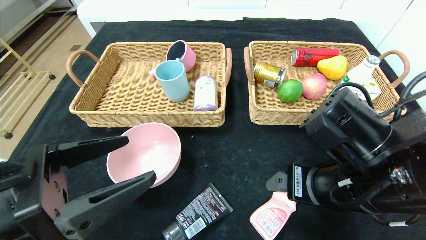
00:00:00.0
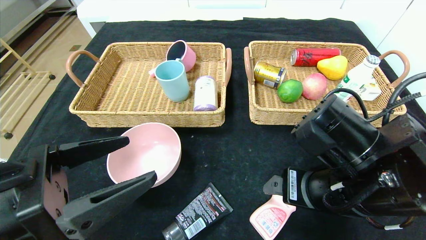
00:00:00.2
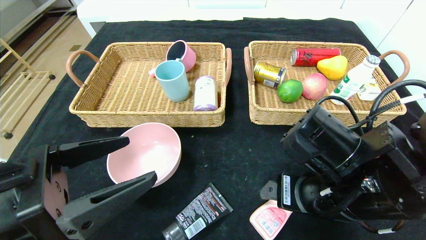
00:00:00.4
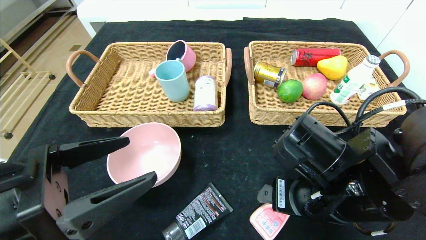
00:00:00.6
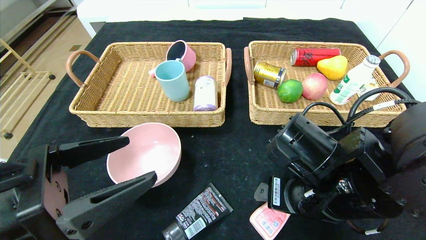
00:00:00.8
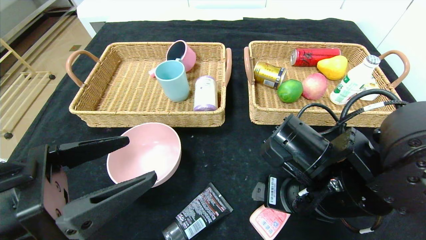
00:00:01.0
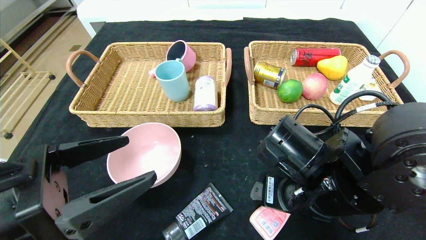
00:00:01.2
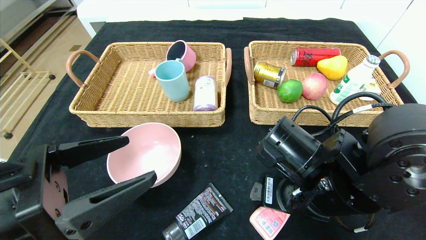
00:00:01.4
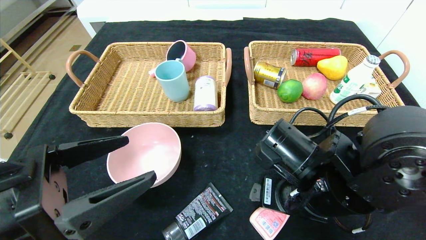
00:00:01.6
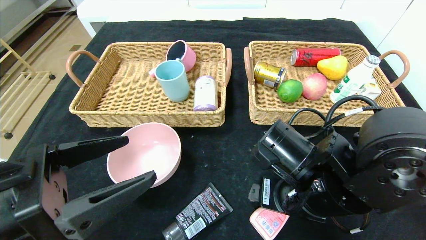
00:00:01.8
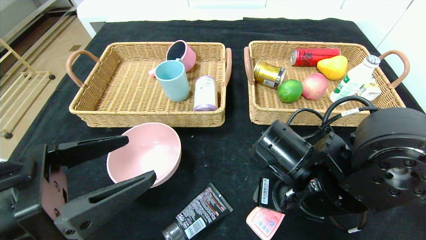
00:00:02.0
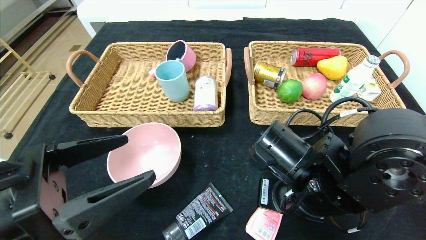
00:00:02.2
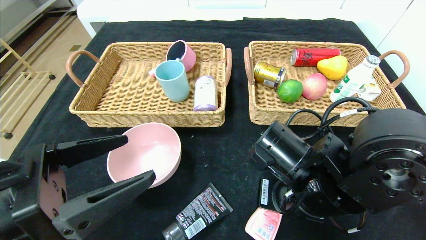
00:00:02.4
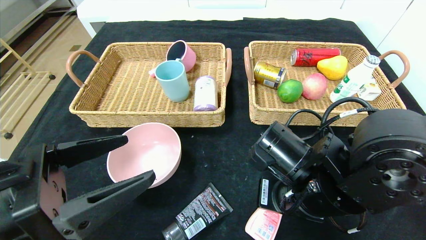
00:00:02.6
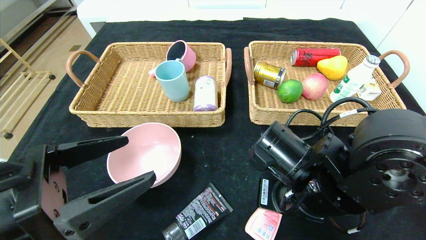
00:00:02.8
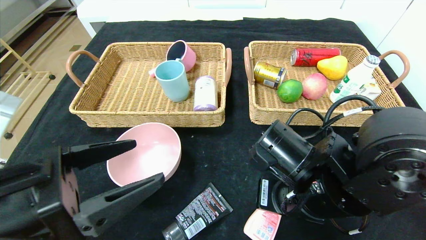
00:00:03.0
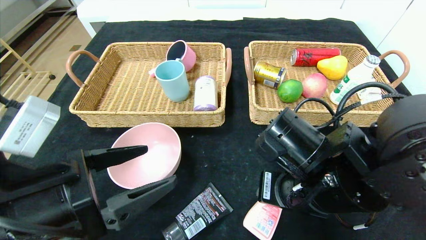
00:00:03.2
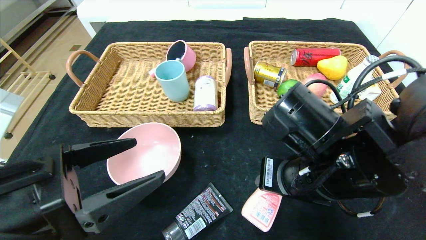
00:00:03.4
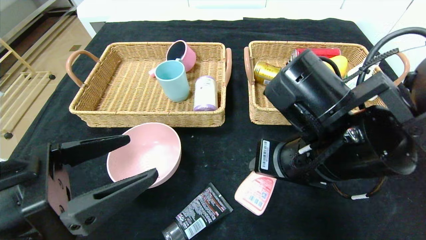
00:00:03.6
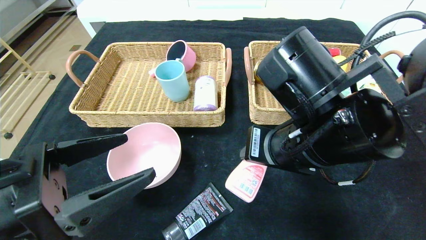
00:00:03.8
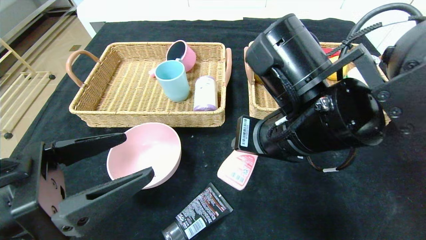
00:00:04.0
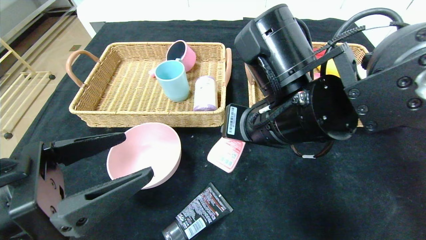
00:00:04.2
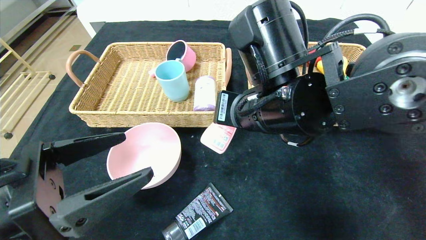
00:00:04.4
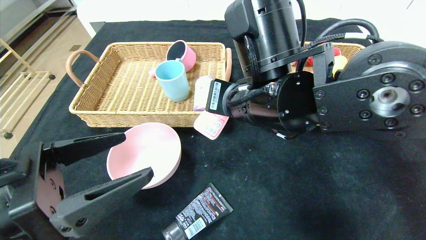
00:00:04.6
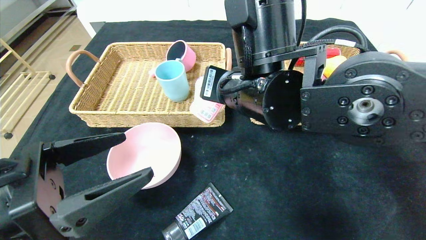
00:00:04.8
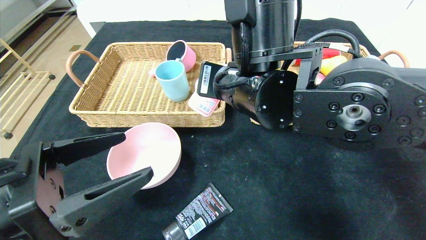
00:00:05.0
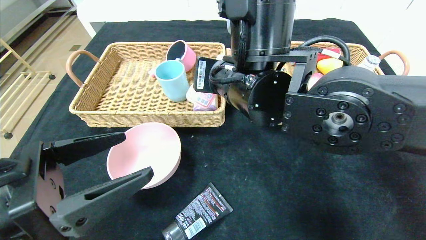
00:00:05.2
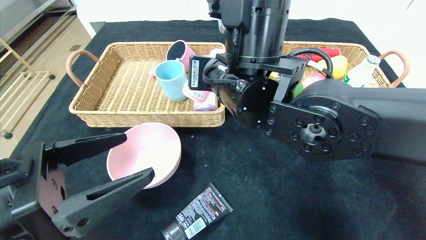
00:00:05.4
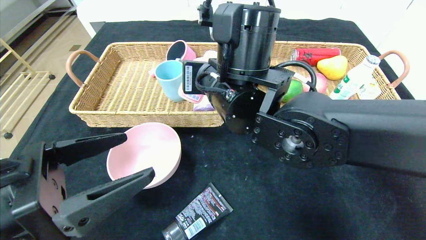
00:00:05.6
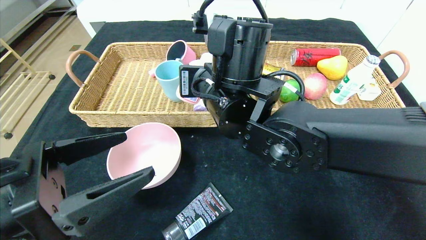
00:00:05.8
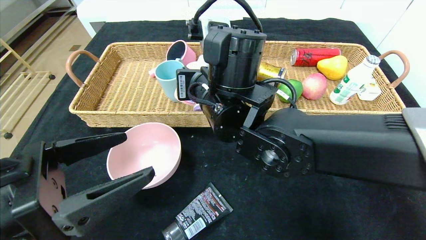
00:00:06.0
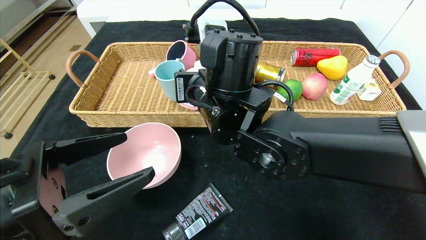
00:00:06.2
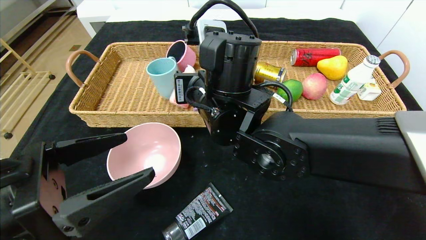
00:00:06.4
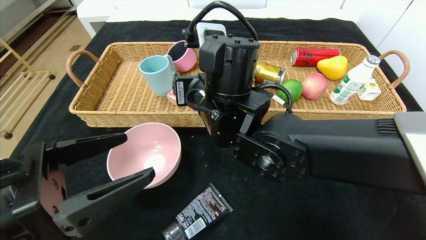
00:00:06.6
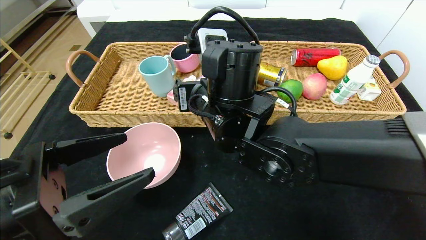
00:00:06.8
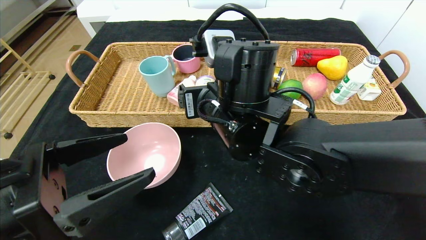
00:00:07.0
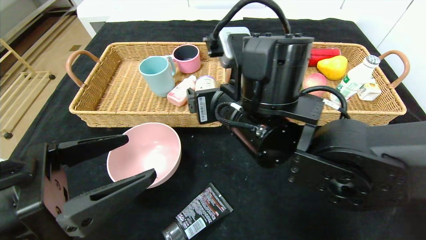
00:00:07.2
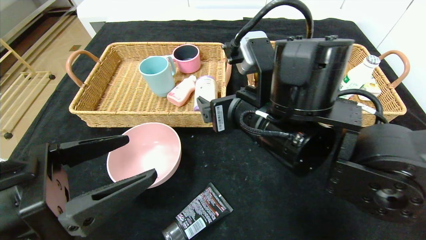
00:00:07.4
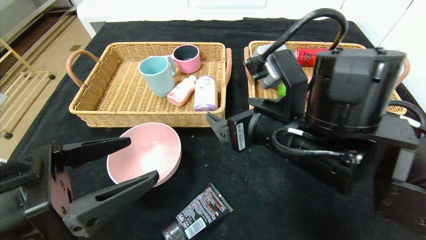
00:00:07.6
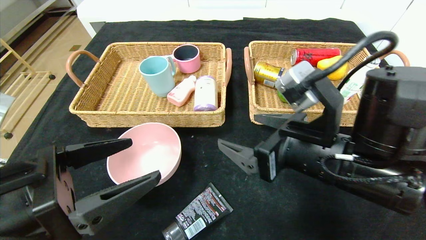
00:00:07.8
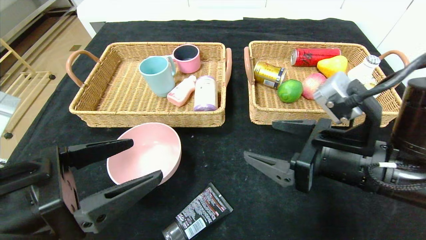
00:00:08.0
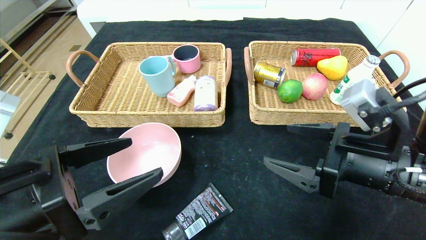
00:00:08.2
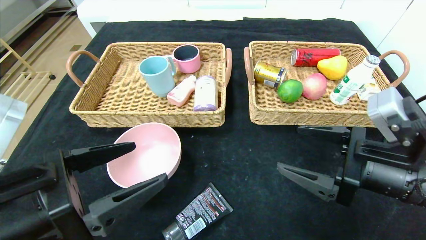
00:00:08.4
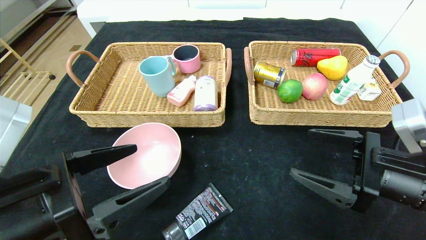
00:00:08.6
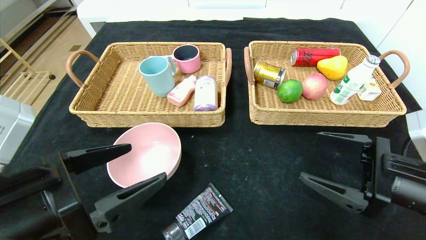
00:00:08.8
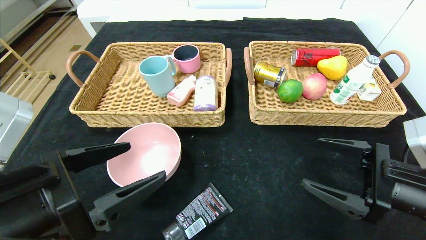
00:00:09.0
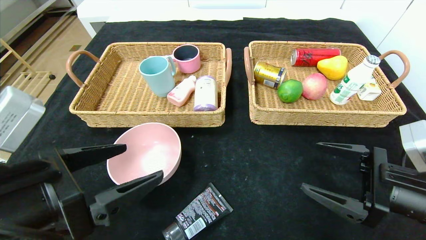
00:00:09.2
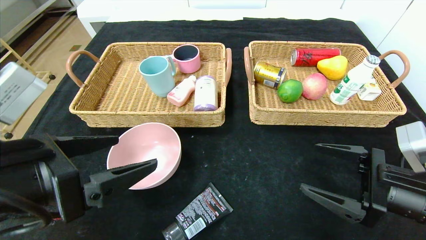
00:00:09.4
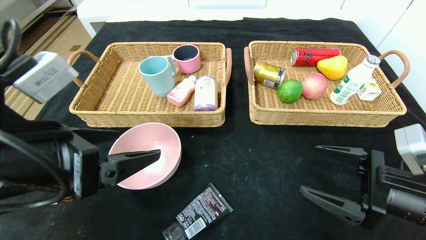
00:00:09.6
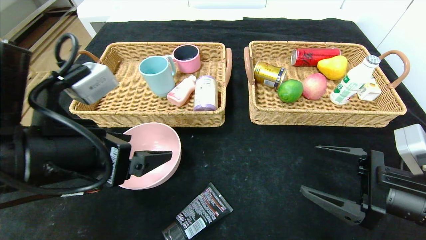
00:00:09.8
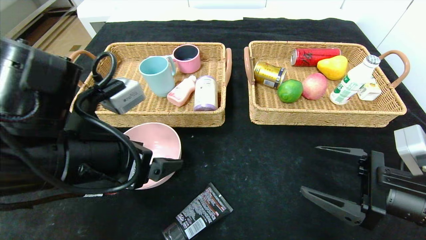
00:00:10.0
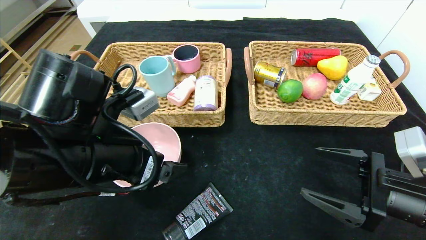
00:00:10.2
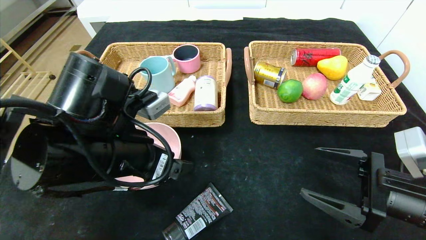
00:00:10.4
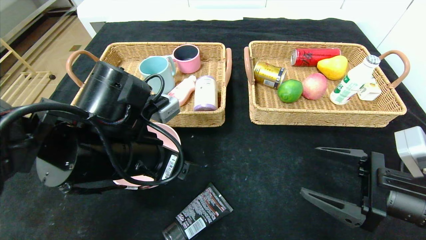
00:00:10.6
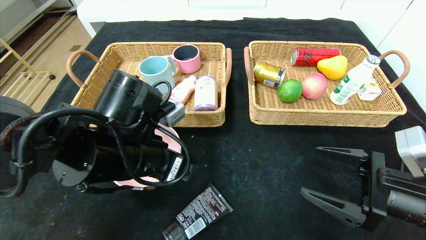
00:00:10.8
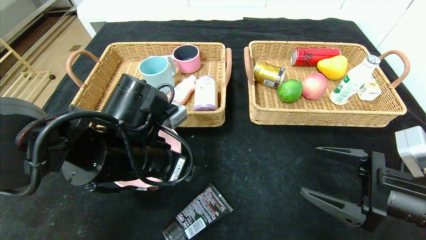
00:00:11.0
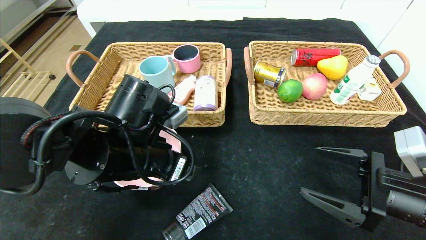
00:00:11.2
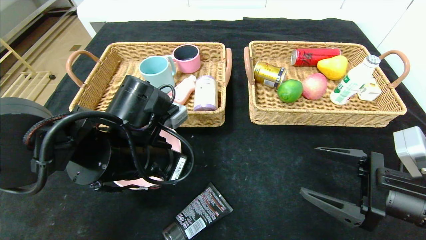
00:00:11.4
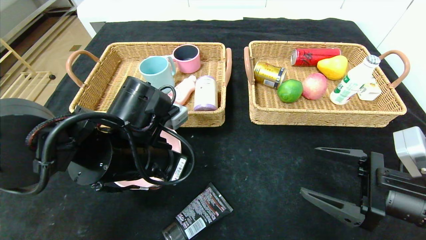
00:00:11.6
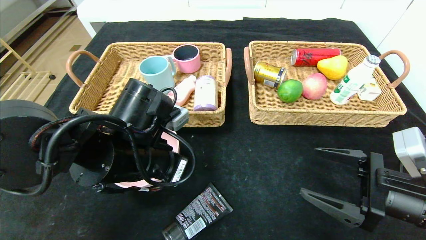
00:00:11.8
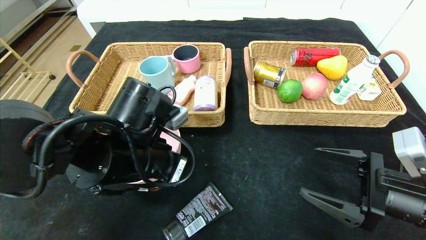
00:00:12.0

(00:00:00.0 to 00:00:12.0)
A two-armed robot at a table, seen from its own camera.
00:00:00.0 - 00:00:01.6: The right gripper moves roughly 5 cm.
00:00:01.6 - 00:00:03.0: The right gripper closes.
00:00:03.0 - 00:00:04.4: The right gripper heads upward and to the left, covering some 10 cm.
00:00:04.4 - 00:00:06.0: The right gripper goes roughly 5 cm to the left.
00:00:06.0 - 00:00:07.6: The right gripper goes some 10 cm to the right and backward, and opens.
00:00:07.6 - 00:00:09.0: The right gripper travels to the right by about 15 cm.
00:00:09.0 - 00:00:10.4: The left gripper shifts some 10 cm forward and to the right.
00:00:10.4 - 00:00:12.0: The left gripper closes.

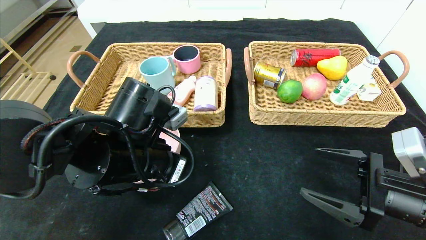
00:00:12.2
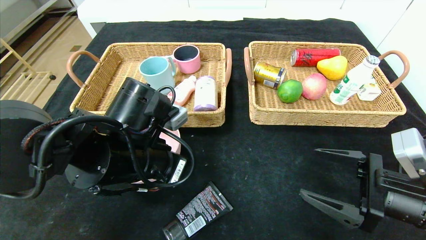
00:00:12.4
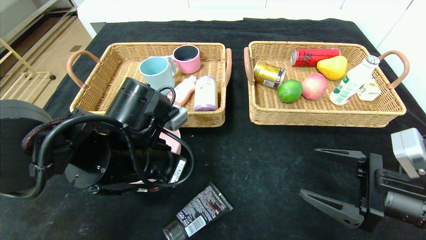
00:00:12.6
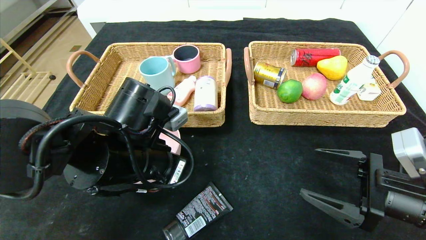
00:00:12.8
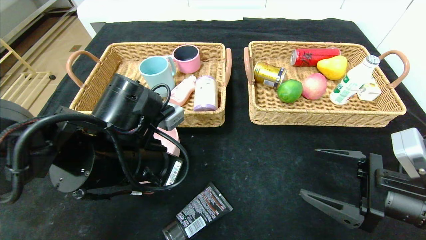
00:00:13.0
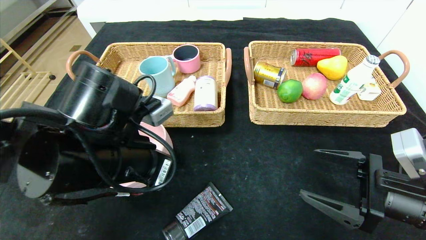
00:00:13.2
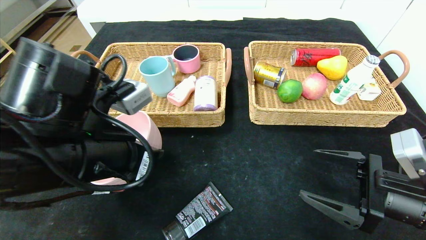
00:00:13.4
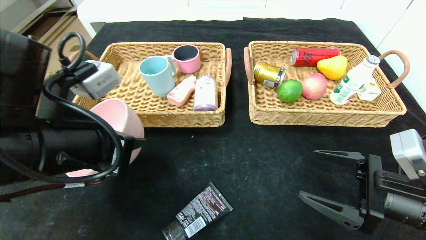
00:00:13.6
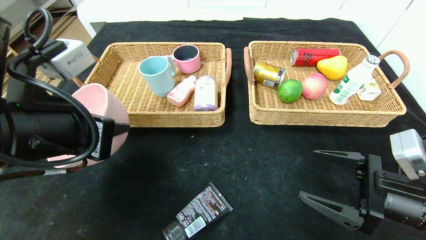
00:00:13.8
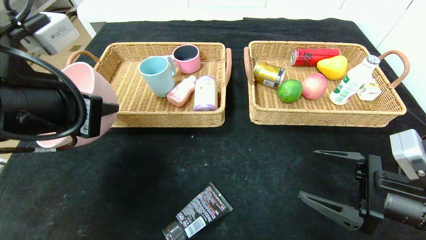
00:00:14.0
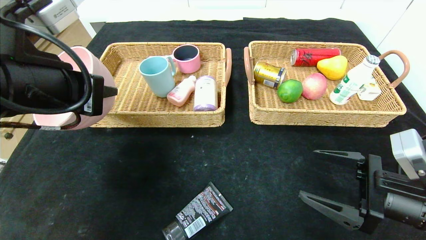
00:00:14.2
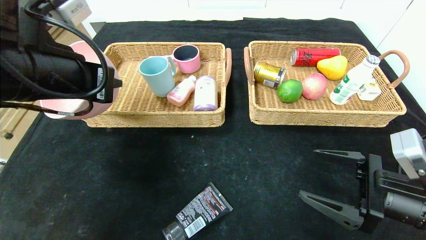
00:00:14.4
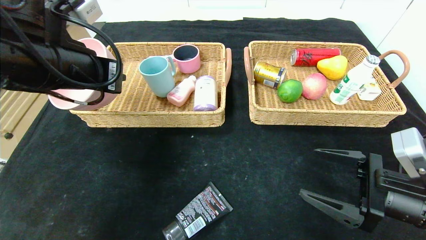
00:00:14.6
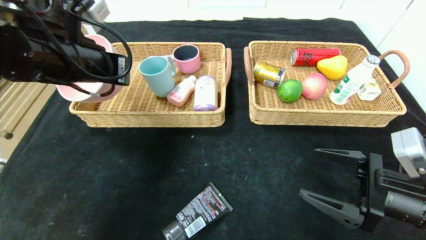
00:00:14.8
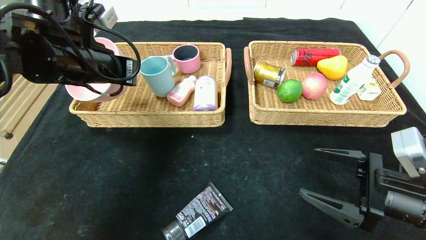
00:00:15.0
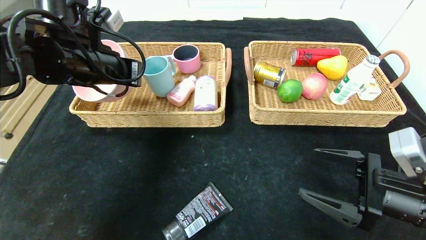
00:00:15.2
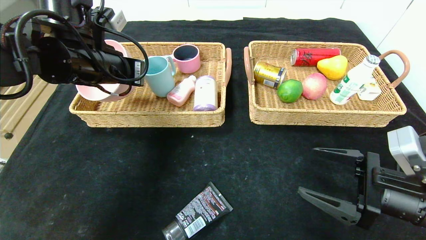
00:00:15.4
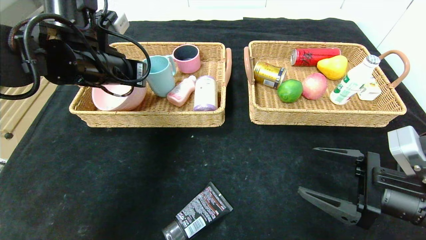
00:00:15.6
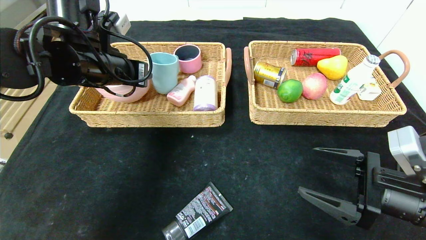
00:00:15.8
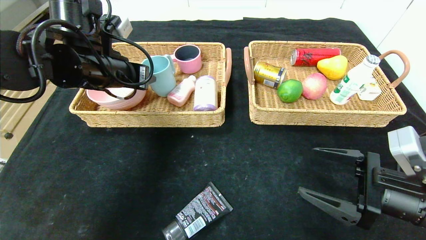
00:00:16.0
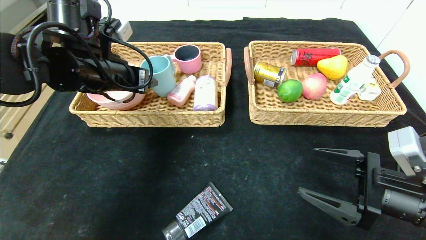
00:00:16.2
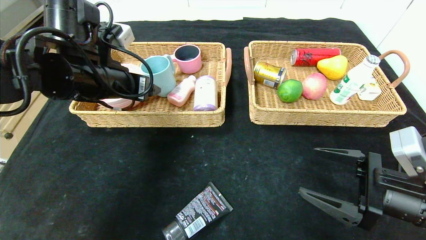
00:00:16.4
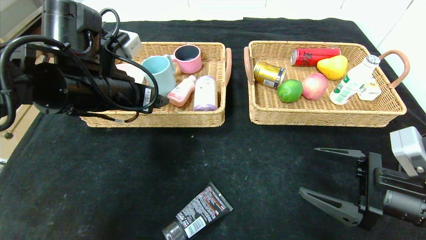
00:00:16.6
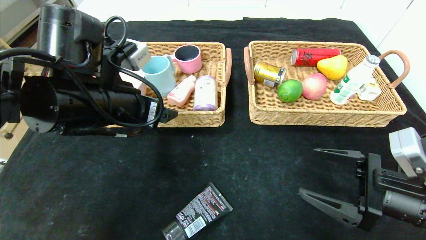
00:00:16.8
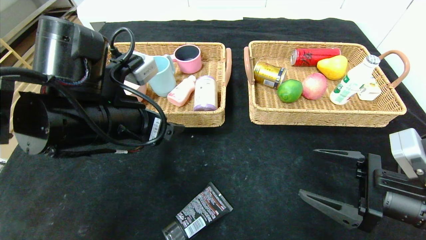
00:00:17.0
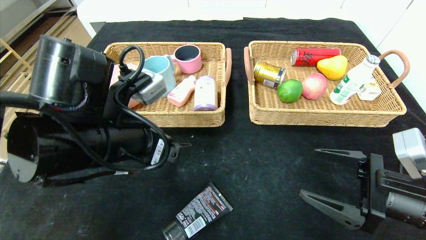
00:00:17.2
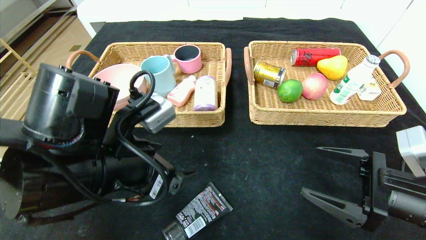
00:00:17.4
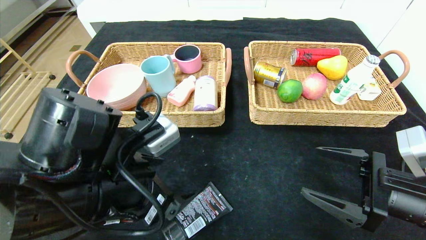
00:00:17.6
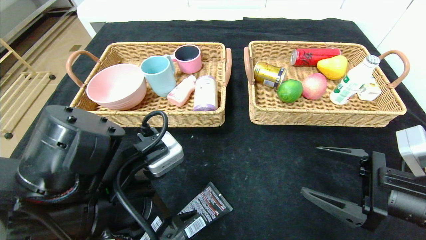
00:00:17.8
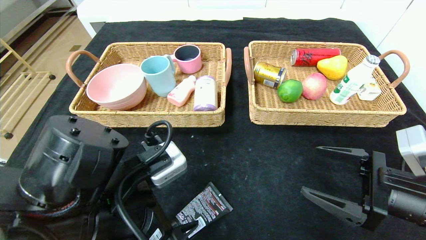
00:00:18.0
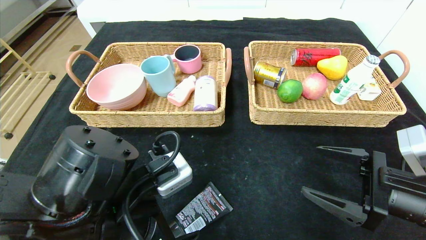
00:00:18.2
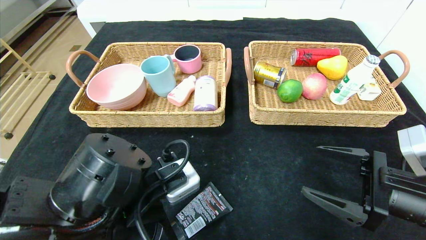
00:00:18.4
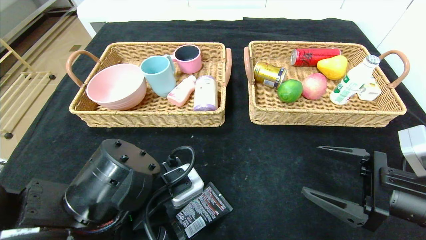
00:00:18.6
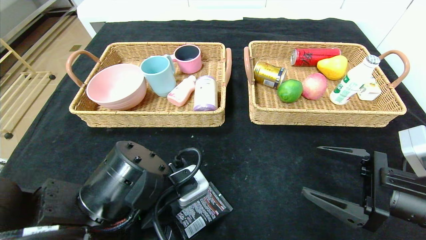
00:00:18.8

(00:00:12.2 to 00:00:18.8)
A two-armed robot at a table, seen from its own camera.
Step, 00:00:12.2 - 00:00:17.2: Pick up the pink bowl and put it in the left basket.
00:00:12.2 - 00:00:13.8: The left gripper moves upward, to the left and backward, roughly 10 cm.
00:00:13.8 - 00:00:15.4: The left gripper moves forward, about 15 cm.
00:00:15.4 - 00:00:17.2: The left gripper is displaced backward, downward and to the right by some 15 cm, and opens its fingers.
00:00:17.2 - 00:00:18.8: The left gripper moves downward and backward, roughly 10 cm.
